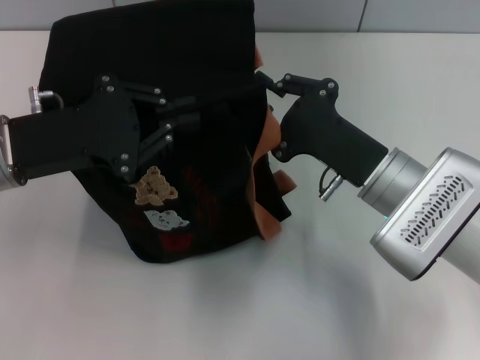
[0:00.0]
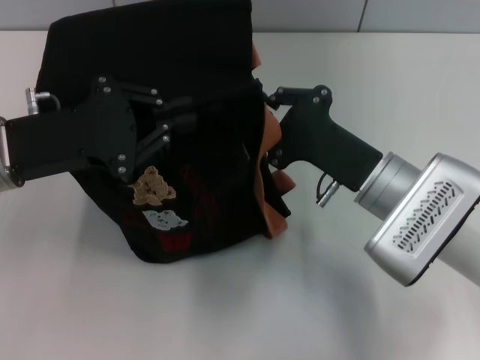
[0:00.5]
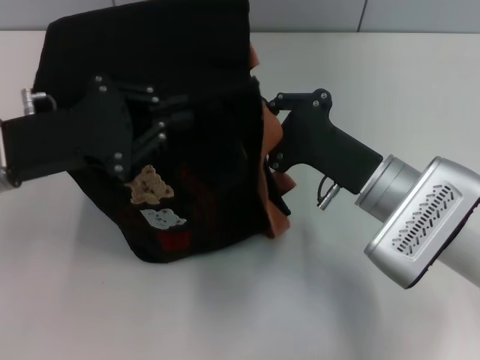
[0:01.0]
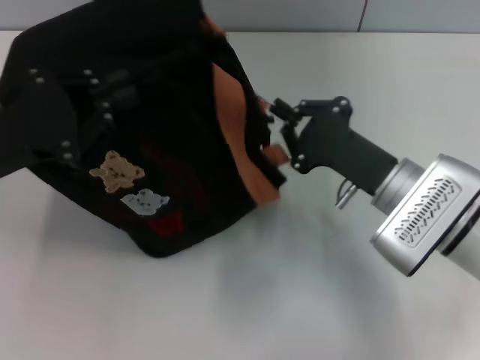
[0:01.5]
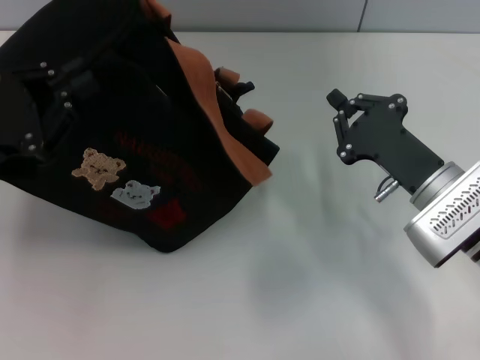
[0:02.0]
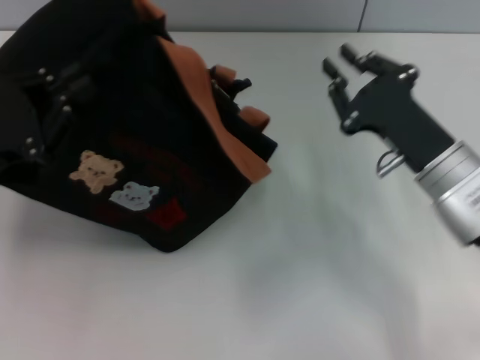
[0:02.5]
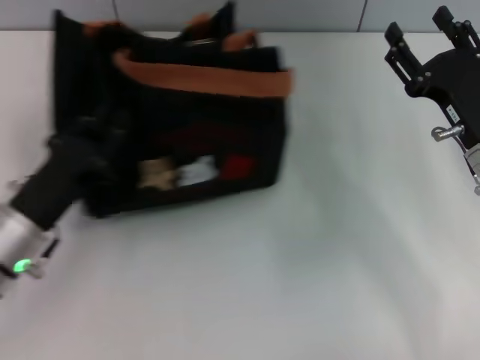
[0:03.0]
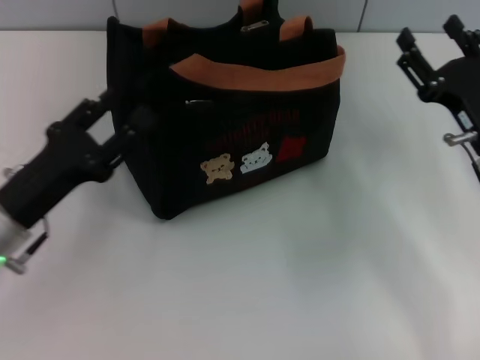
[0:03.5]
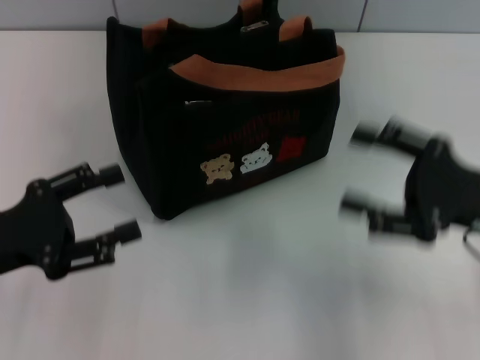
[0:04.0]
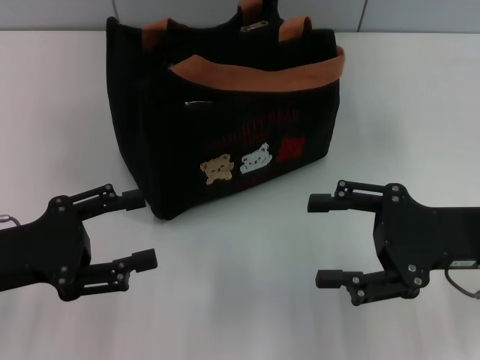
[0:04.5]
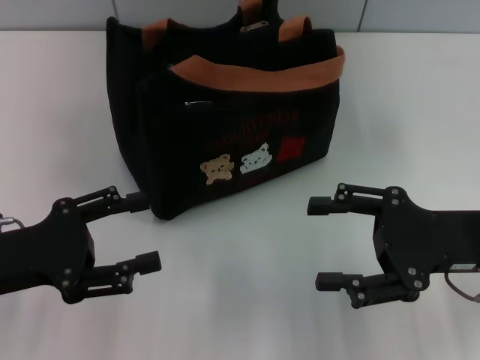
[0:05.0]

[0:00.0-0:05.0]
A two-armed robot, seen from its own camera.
Step, 0:02.0 to 0:03.5: Grab the bag with your left hand.
0:00.0 to 0:02.5: The left gripper heads to the left, covering roughly 5 cm. The right gripper shifts roughly 5 cm to the right.
0:02.5 to 0:05.0: The left gripper goes downward and returns, approximately 10 cm each way, and opens, while the right gripper moves roughly 5 cm, and opens up.
